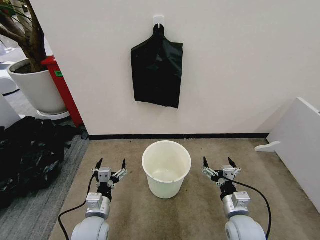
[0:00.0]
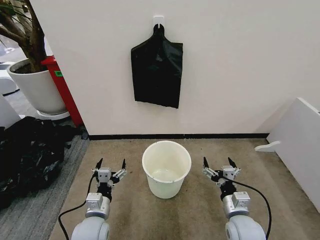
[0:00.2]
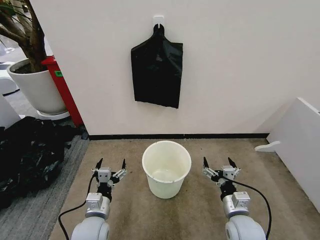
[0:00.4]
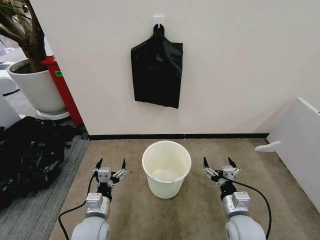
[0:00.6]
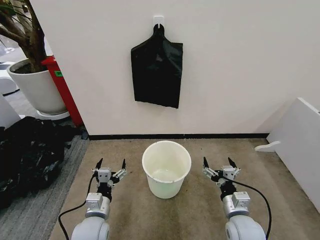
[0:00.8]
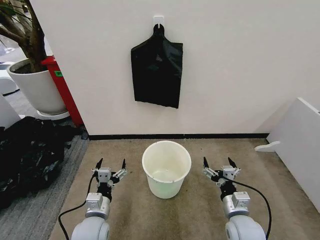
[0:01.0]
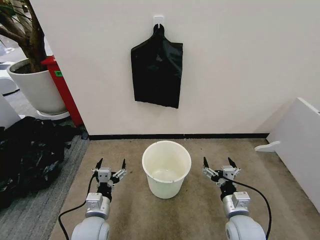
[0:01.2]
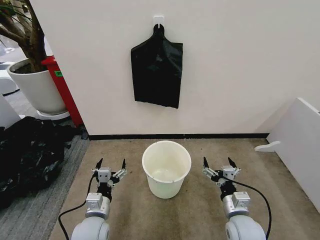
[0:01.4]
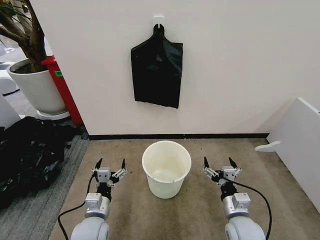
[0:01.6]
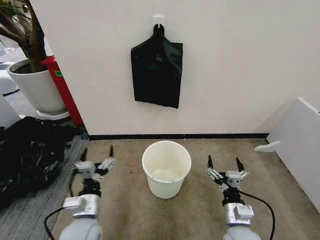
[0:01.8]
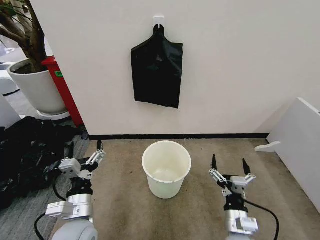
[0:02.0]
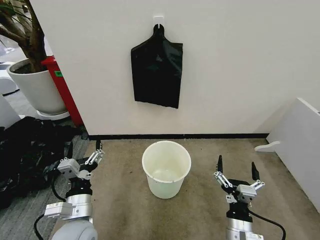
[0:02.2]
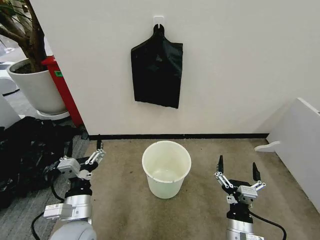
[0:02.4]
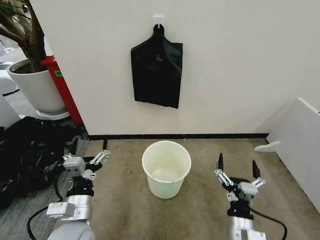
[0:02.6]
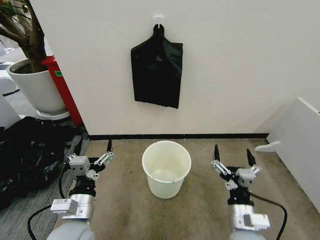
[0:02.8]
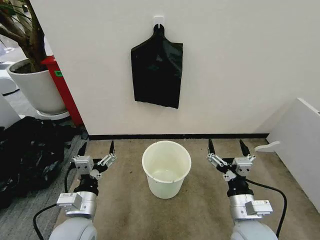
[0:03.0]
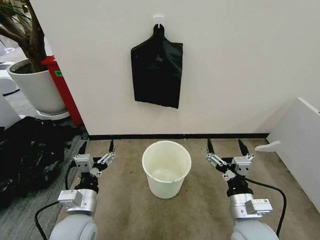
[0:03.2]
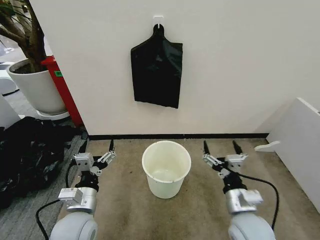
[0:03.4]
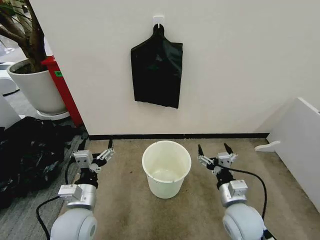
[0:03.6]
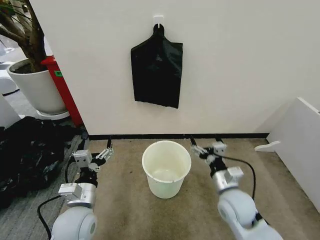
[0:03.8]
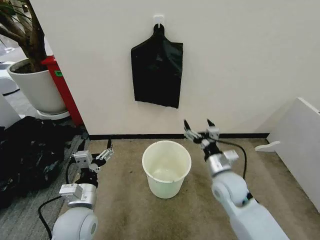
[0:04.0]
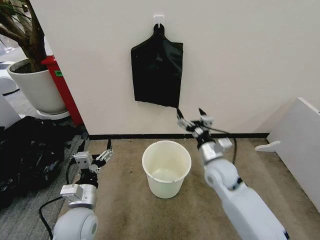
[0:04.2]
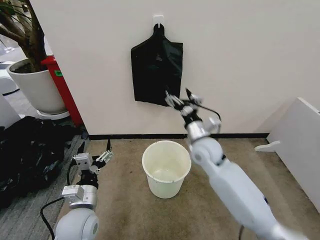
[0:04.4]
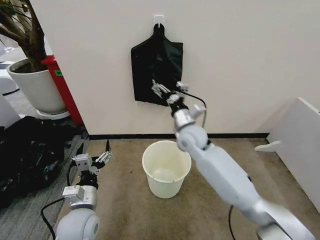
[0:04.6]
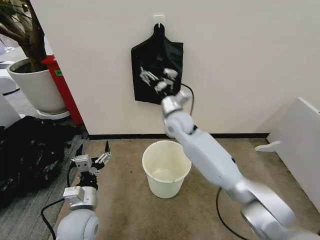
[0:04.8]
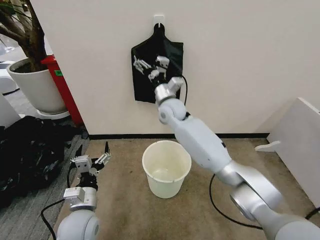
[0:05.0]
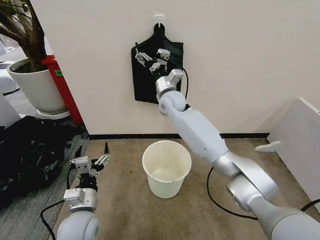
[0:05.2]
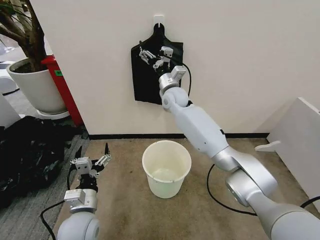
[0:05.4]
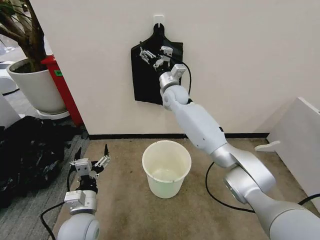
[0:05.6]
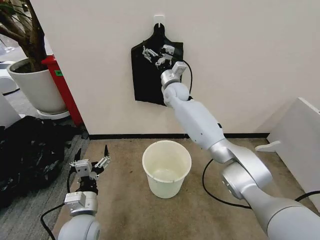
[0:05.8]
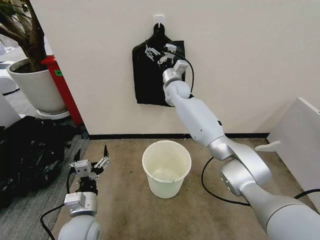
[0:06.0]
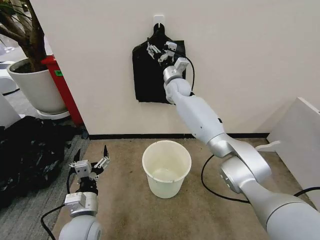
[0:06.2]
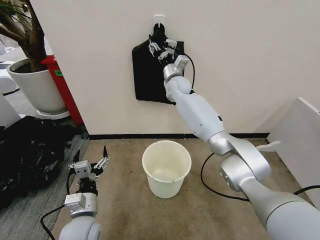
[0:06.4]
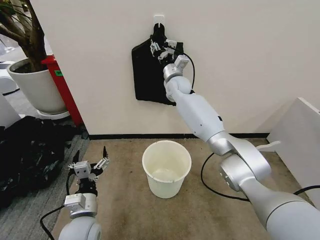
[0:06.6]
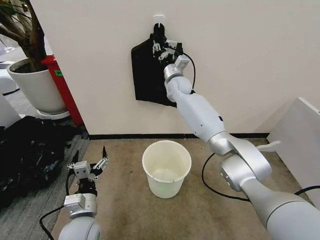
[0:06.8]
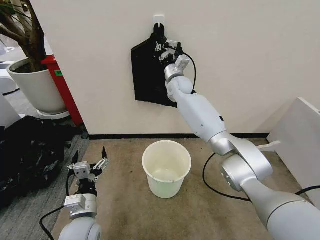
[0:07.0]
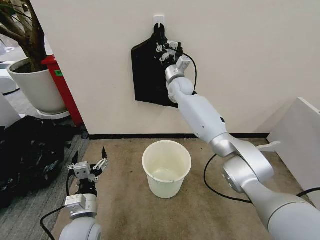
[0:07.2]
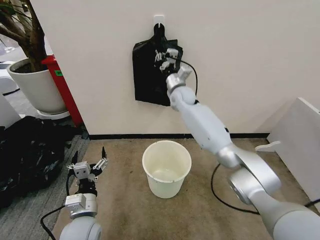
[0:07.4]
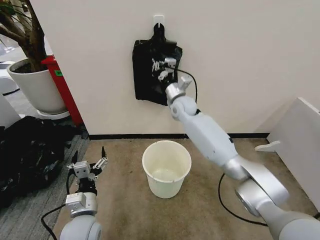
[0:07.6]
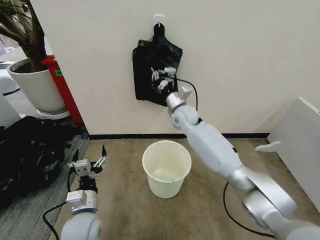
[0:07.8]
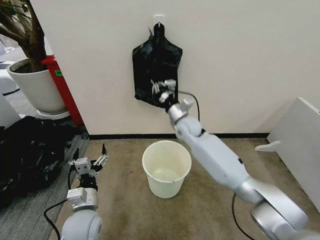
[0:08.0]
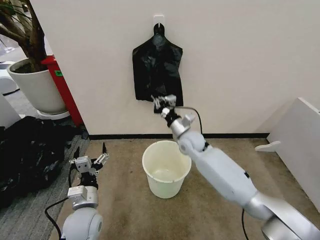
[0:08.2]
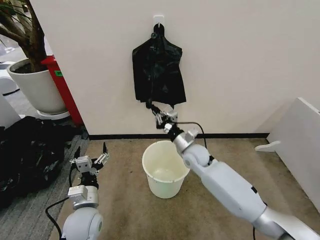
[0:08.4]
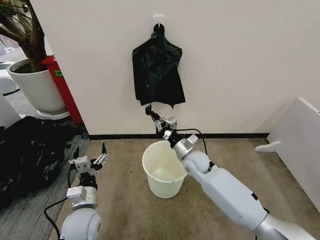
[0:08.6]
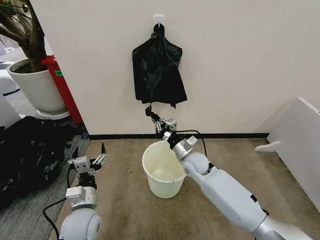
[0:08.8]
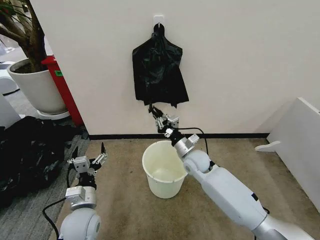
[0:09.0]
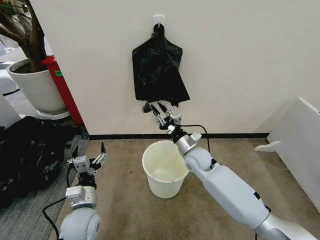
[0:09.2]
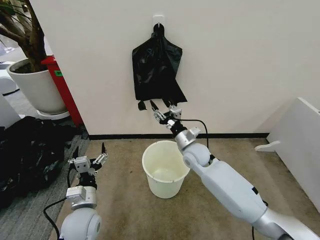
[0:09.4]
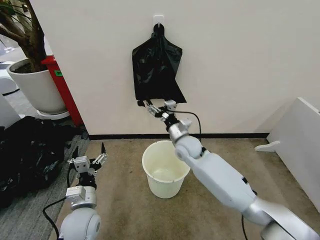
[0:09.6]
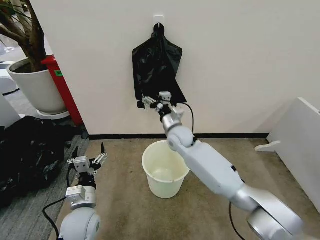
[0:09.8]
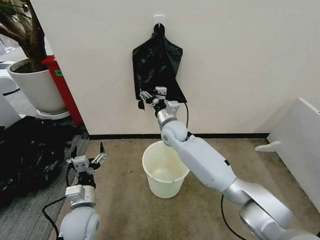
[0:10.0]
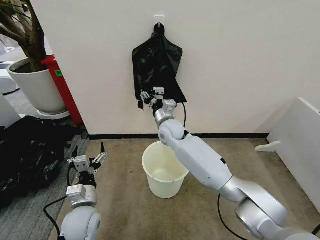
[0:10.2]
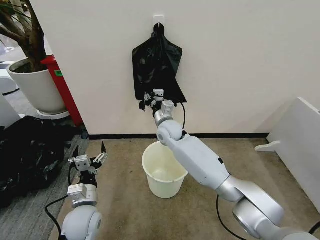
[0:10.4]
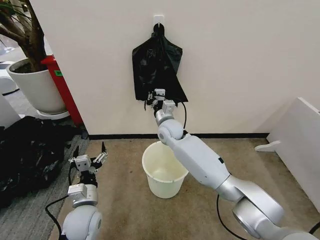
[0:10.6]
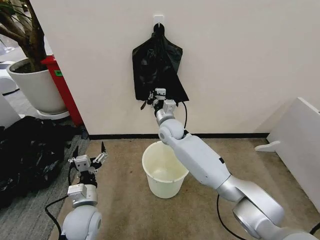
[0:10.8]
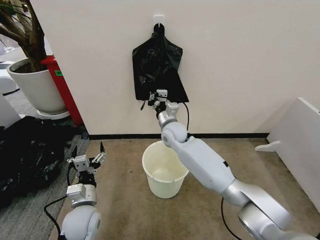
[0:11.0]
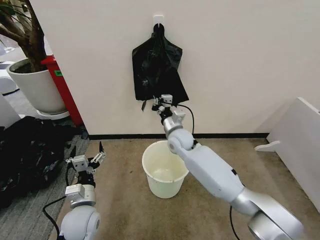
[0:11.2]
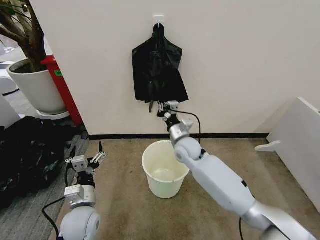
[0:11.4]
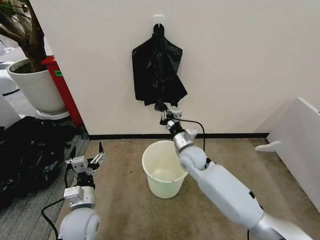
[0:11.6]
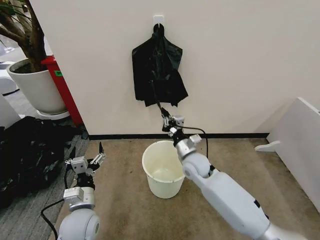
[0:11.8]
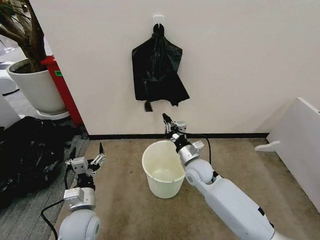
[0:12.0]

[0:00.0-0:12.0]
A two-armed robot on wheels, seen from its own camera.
Task of the whole recording: Place the garbage bag over the trash bin.
0:01.6 to 0:03.0: Both grippers travel together upward, approximately 10 cm.
0:03.0 to 0:04.4: The right gripper heads forward, covering roughly 25 cm.
0:04.4 to 0:06.0: The right gripper shifts about 25 cm forward and upward.
0:06.0 to 0:07.6: The right gripper is displaced backward by roughly 5 cm, and closes its fingers.
0:07.6 to 0:09.0: The right gripper is displaced backward and downward by roughly 20 cm.
0:09.0 to 0:10.4: The right gripper goes some 15 cm to the left, upward and forward, and opens, then closes once more.
0:10.4 to 0:12.0: The right gripper travels backward, to the right and downward by roughly 20 cm.

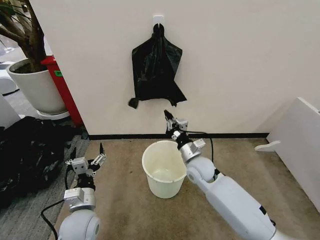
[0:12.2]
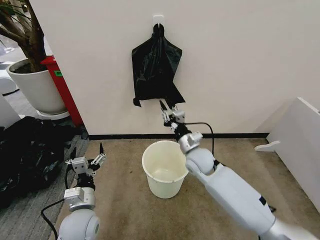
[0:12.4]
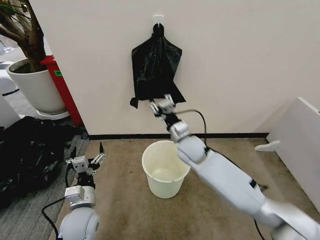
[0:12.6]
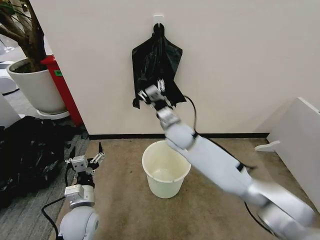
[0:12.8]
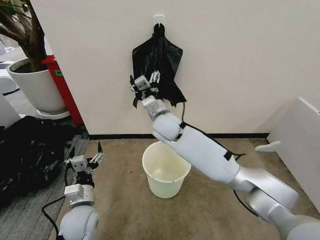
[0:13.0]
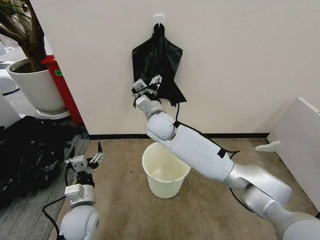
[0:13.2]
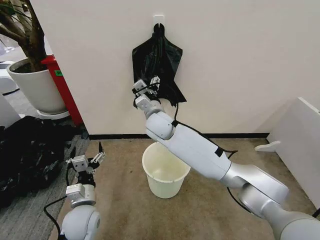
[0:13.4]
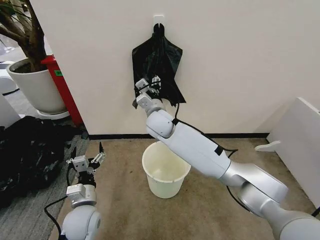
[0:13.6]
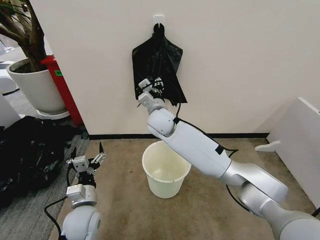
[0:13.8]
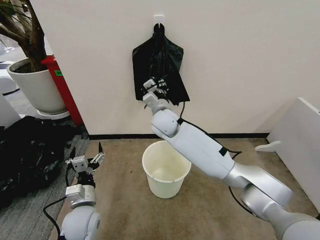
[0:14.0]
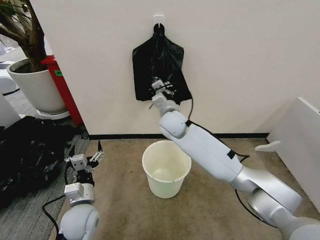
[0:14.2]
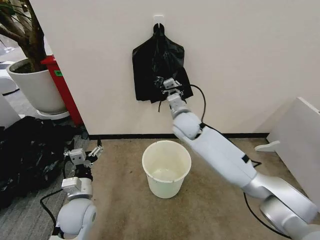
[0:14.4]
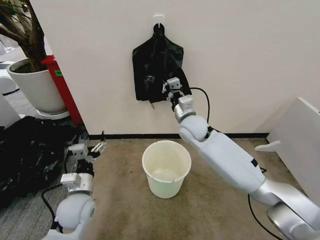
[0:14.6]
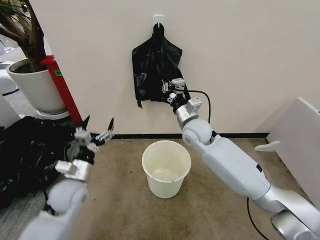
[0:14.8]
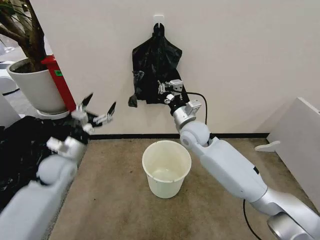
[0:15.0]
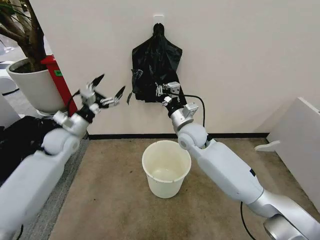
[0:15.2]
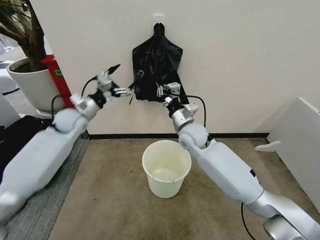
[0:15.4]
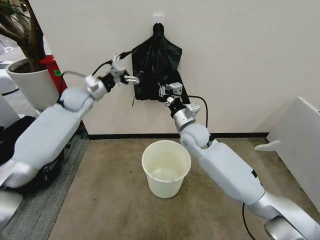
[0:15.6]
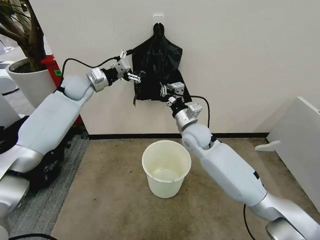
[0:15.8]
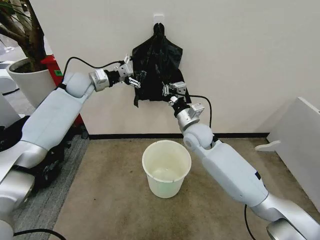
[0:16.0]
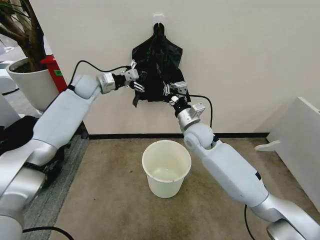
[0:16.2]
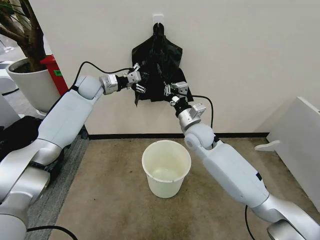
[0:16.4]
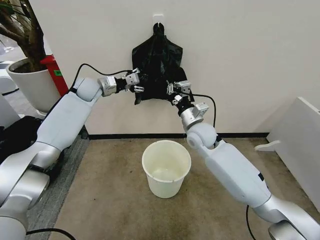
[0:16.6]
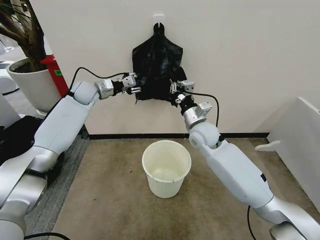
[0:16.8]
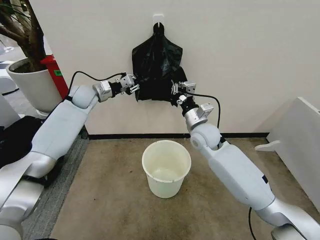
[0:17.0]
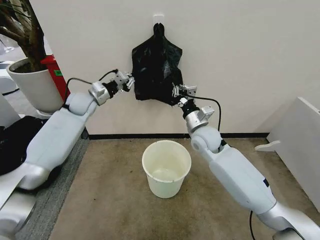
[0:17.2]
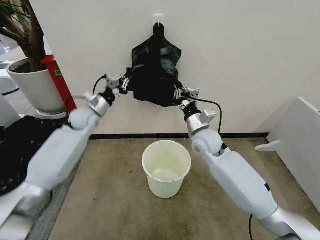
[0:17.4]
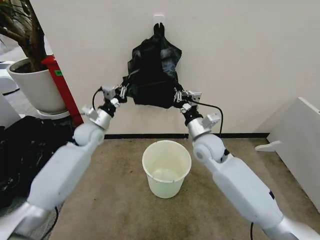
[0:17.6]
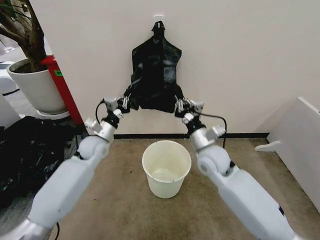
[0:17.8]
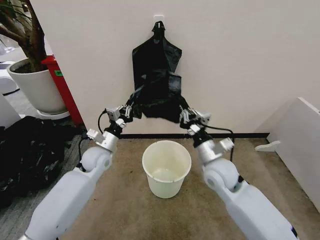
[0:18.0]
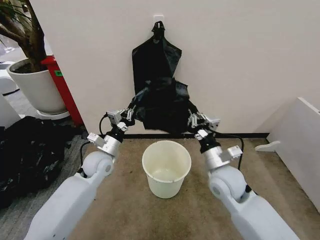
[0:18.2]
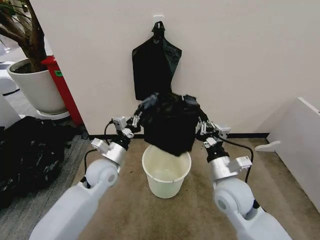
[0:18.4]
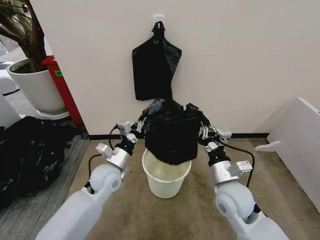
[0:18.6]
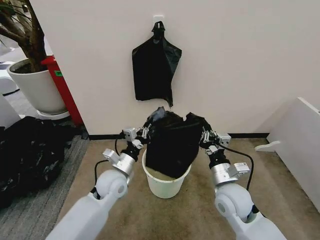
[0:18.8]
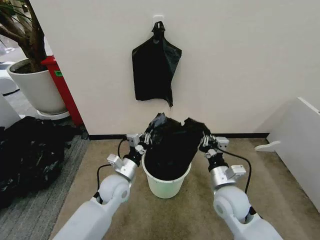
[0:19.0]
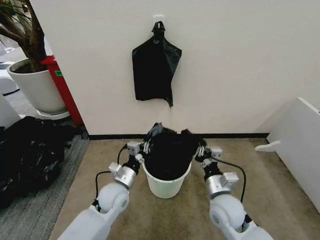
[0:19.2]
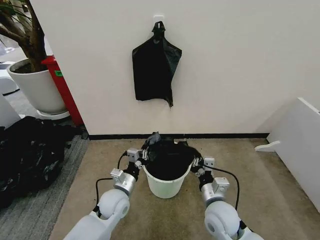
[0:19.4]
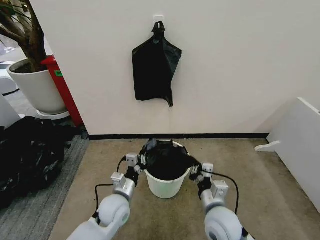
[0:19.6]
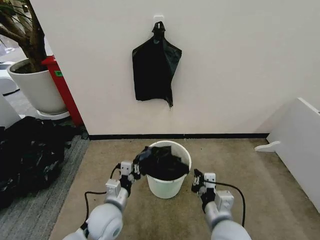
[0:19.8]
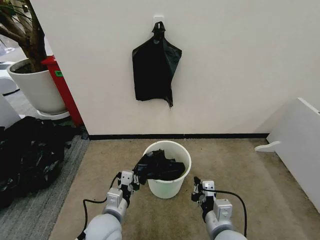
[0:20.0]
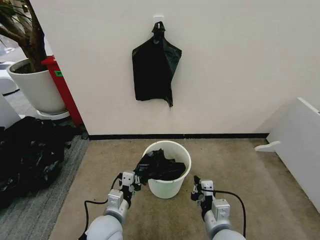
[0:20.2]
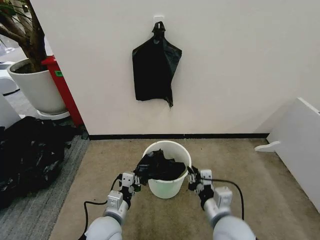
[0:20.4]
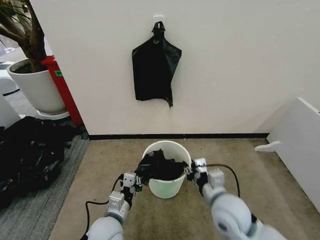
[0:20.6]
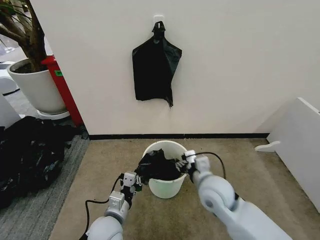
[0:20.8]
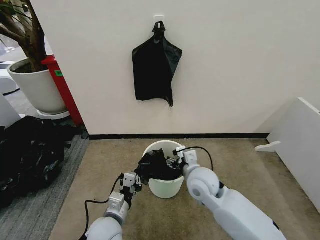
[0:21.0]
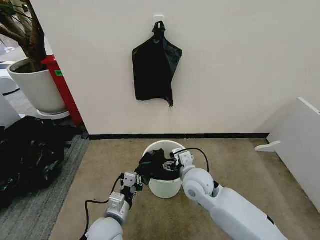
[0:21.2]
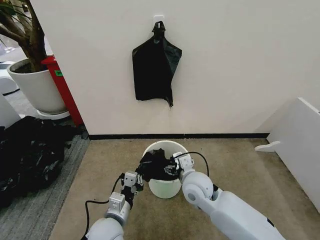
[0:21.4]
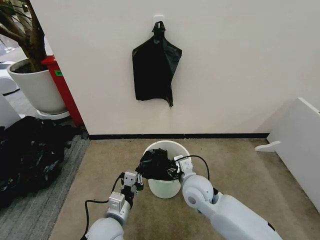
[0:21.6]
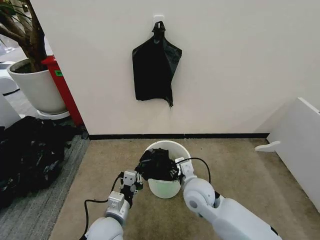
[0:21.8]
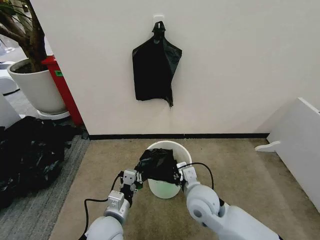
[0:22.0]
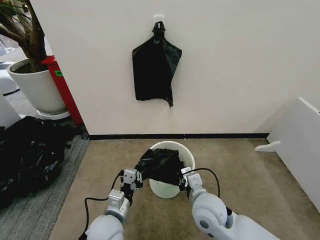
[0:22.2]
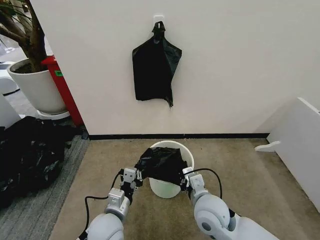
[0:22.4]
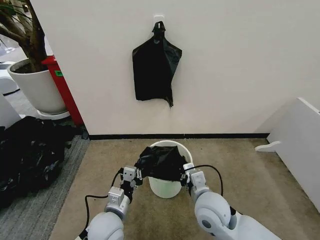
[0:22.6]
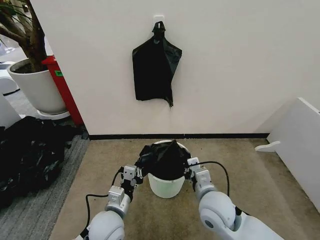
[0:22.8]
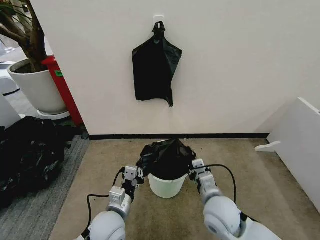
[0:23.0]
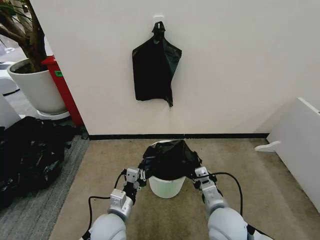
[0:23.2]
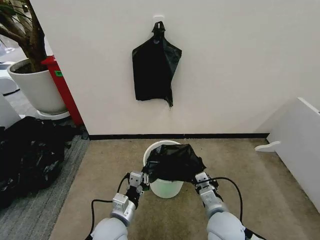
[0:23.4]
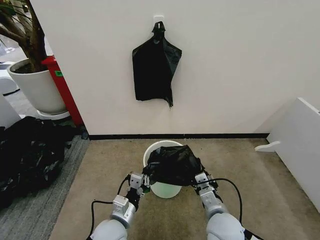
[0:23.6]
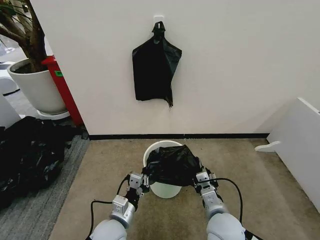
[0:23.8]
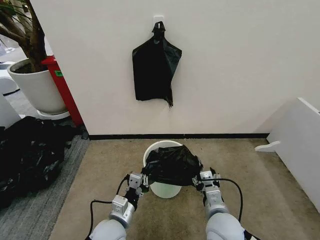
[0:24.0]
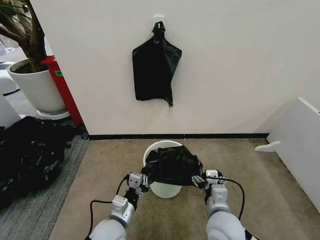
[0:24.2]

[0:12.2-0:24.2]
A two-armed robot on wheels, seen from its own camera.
Task of the whole recording: Place the garbage bag over the trash bin.
0:12.2 to 0:13.8: The right gripper shifts some 20 cm to the left, upward and forward, and opens, then closes again.
0:13.8 to 0:15.2: The left gripper is displaced forward, to the left and upward by approximately 20 cm; the right gripper travels to the right by approximately 10 cm.
0:15.2 to 0:16.6: The left gripper goes about 30 cm forward and upward, and closes.
0:16.6 to 0:18.2: The left gripper shifts roughly 30 cm backward and downward, and closes up. The right gripper is displaced backward by roughly 15 cm.
0:18.2 to 0:19.8: Both grippers move backward, some 15 cm.
0:19.8 to 0:21.2: The right gripper travels forward by some 15 cm, and opens.
0:21.2 to 0:22.6: The right gripper is displaced backward by roughly 10 cm, and closes.
0:22.6 to 0:24.2: The right gripper moves about 5 cm, and opens.
